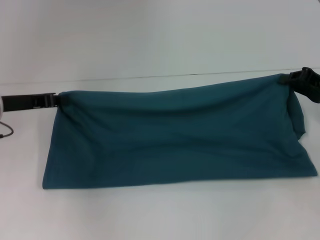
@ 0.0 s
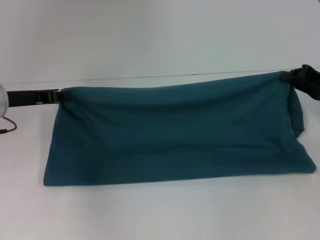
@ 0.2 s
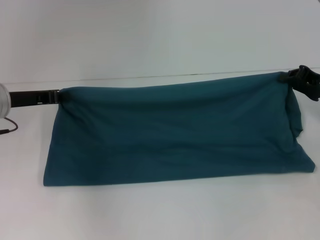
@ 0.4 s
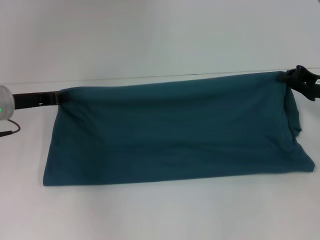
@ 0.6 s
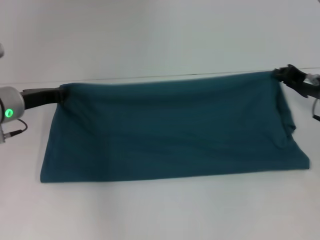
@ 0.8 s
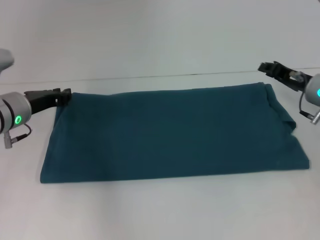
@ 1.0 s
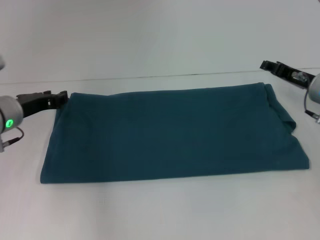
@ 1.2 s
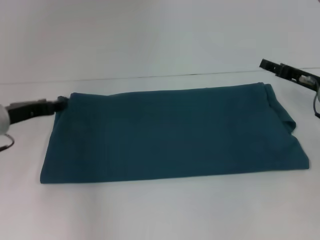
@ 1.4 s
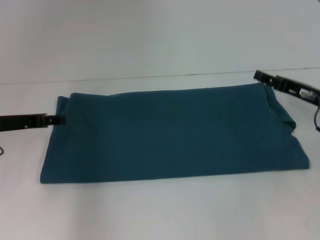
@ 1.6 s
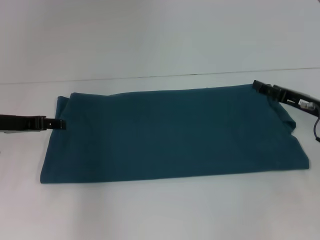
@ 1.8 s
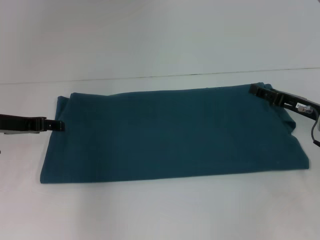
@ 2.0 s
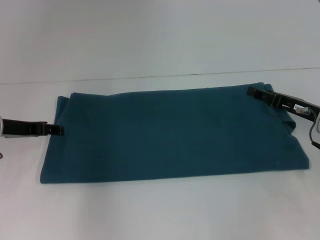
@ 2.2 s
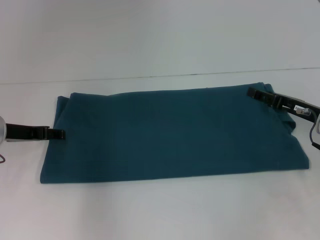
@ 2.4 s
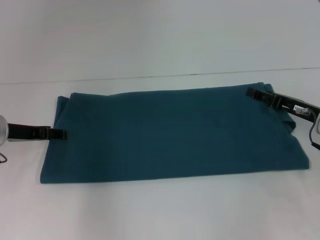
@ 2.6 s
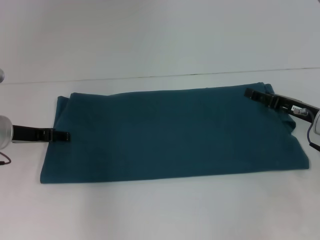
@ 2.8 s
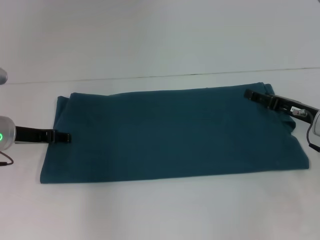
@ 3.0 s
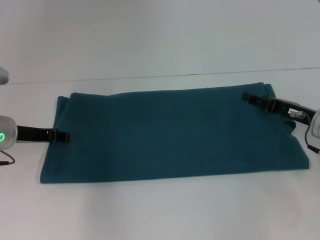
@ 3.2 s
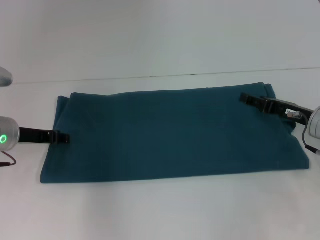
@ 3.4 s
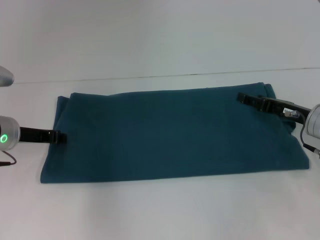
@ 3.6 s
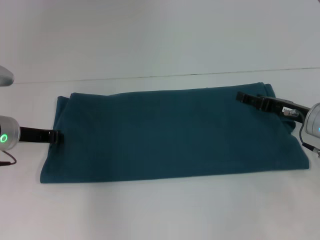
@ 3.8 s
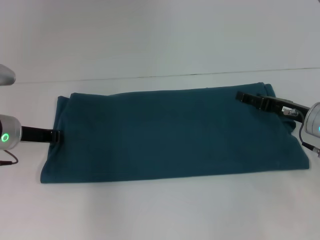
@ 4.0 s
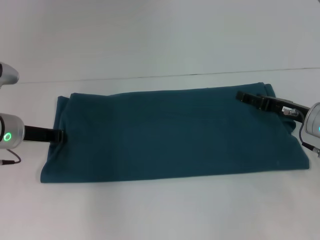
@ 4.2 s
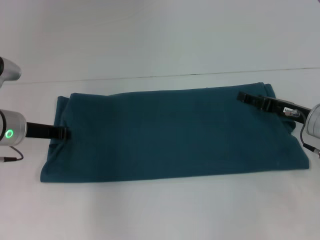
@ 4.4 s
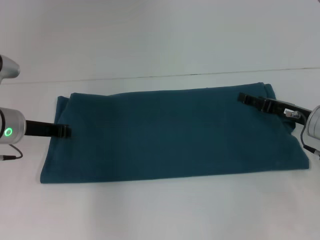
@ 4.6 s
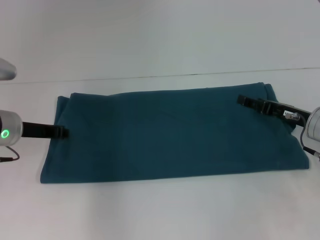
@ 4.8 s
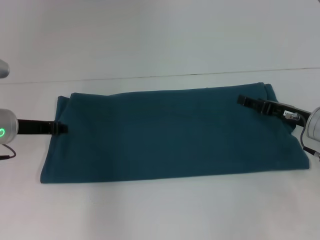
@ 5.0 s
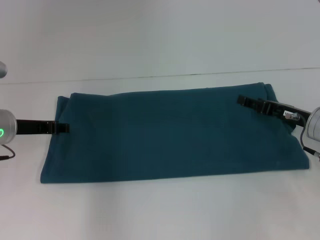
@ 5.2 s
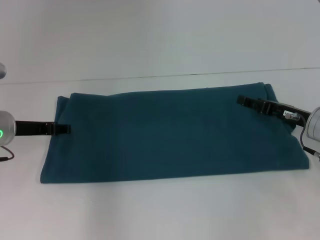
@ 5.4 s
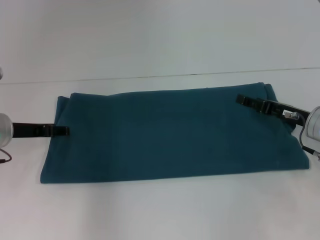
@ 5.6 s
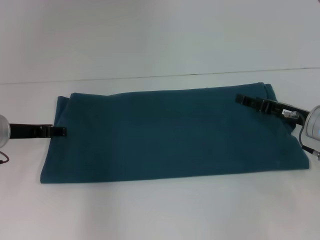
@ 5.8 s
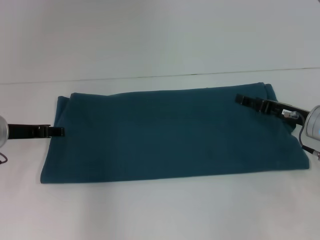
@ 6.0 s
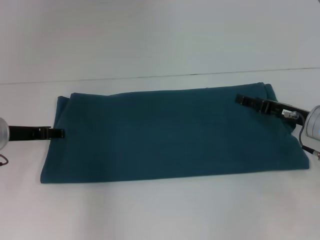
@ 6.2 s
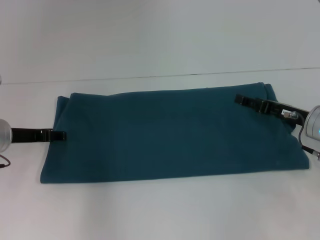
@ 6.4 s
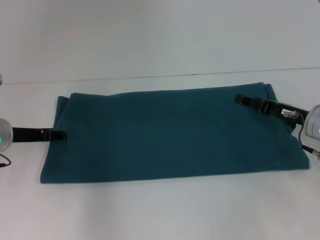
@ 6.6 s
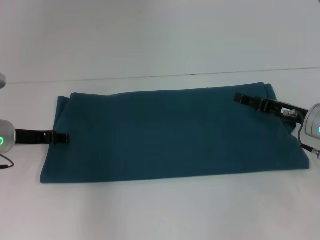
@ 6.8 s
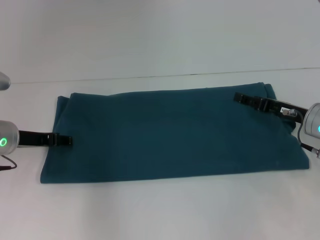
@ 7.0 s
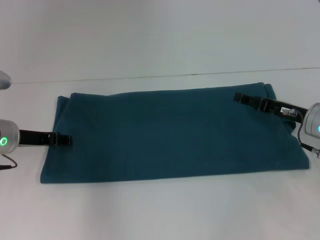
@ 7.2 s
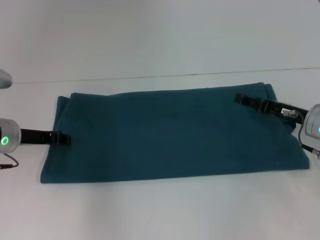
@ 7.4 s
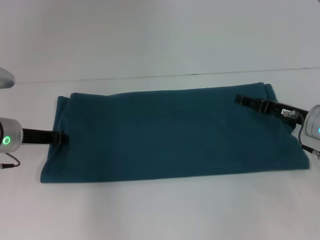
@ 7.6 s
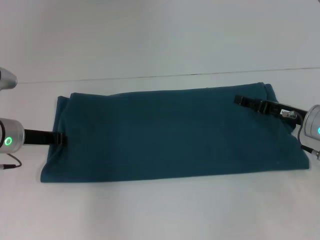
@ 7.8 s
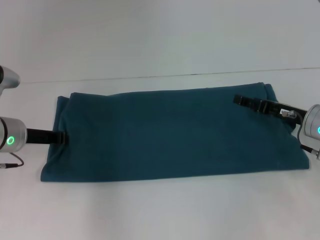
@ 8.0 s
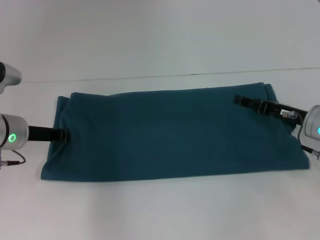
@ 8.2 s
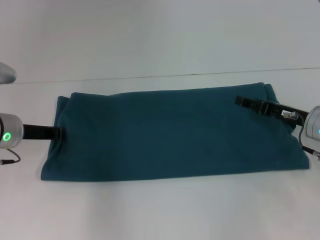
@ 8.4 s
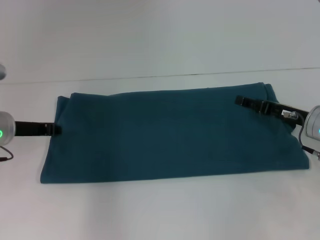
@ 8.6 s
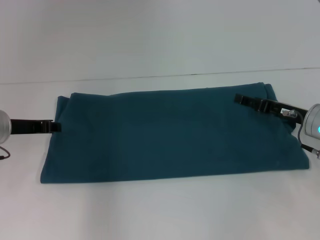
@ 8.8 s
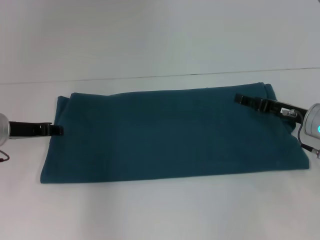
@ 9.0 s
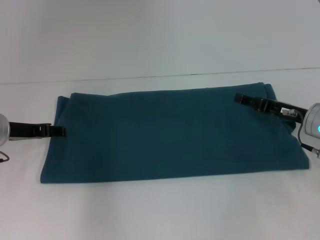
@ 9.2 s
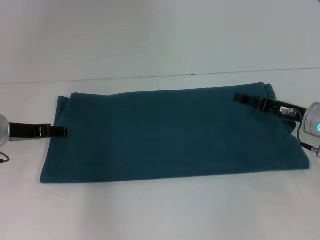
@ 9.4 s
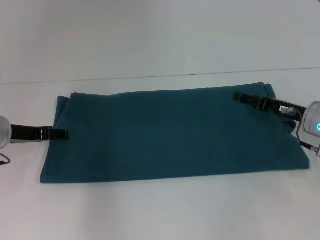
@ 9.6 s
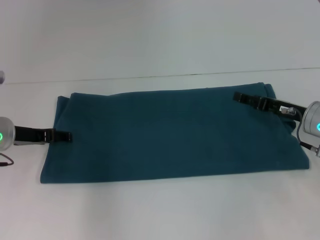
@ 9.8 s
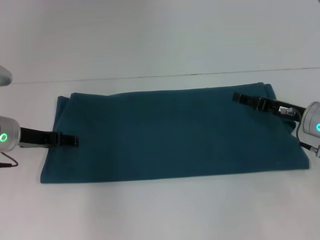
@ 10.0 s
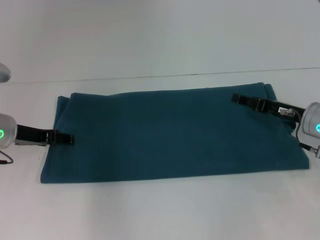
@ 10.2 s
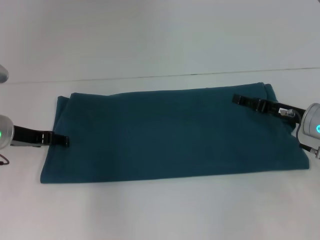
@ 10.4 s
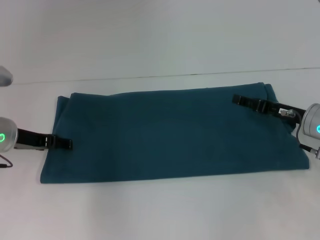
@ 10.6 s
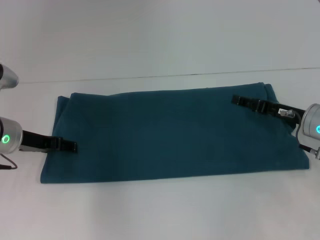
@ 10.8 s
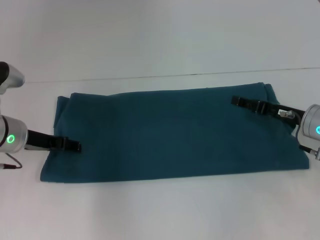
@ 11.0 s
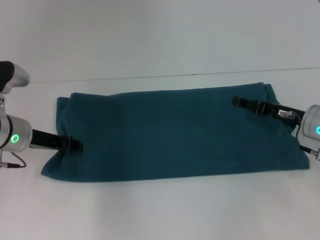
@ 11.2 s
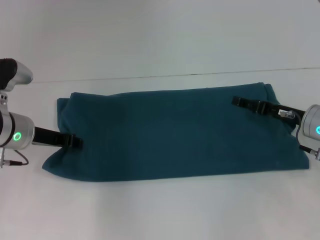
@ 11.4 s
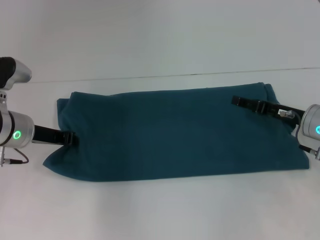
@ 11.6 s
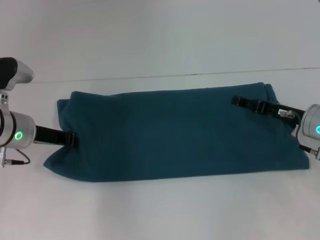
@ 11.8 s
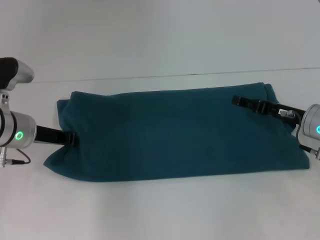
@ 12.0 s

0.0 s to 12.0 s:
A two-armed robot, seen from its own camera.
0.0 to 1.6 s: The left gripper opens its fingers. Meanwhile the right gripper opens its fingers.
1.6 to 3.0 s: The grippers make only small movements.
3.0 to 4.4 s: The left gripper closes.
4.4 to 6.0 s: The left gripper opens its fingers.
6.0 to 9.0 s: There are only small adjustments of the grippers.
9.0 to 10.4 s: The left gripper opens.
10.4 to 12.0 s: The left gripper closes its fingers.

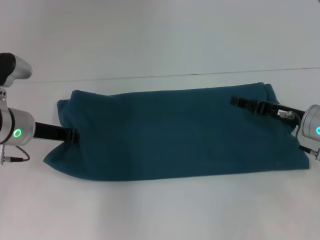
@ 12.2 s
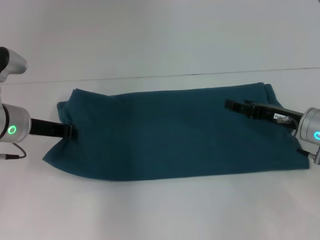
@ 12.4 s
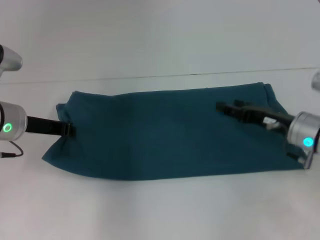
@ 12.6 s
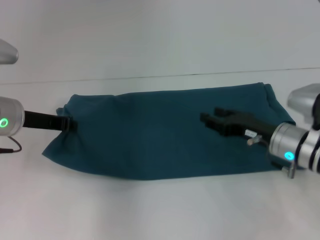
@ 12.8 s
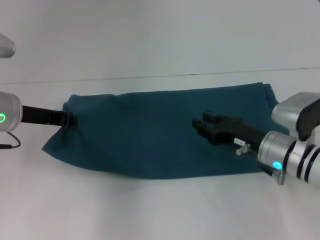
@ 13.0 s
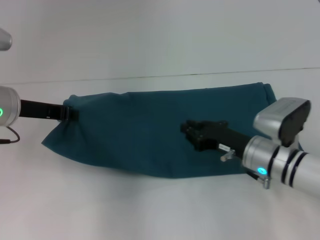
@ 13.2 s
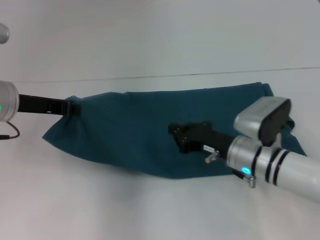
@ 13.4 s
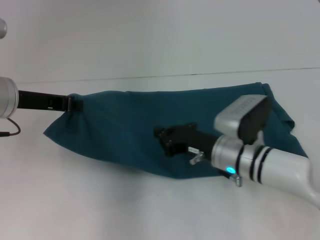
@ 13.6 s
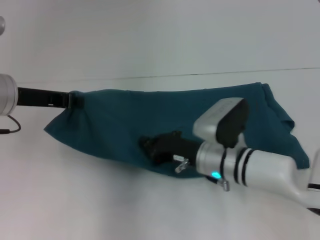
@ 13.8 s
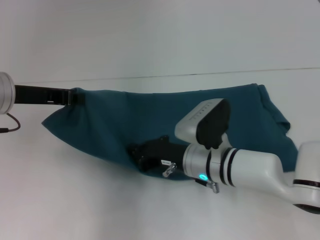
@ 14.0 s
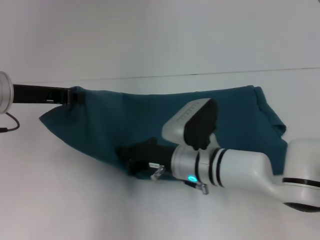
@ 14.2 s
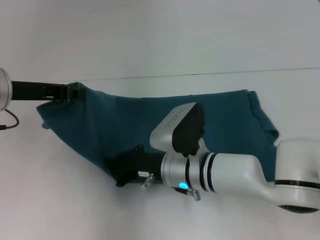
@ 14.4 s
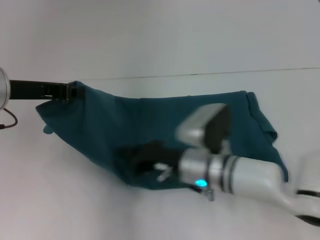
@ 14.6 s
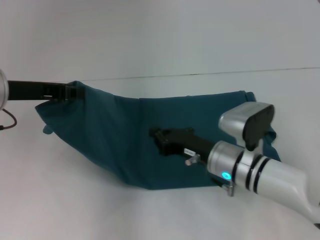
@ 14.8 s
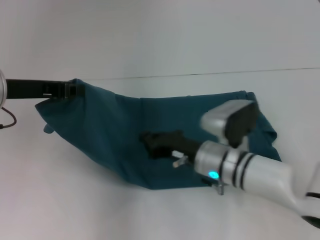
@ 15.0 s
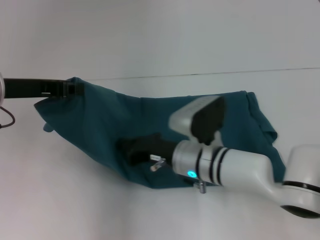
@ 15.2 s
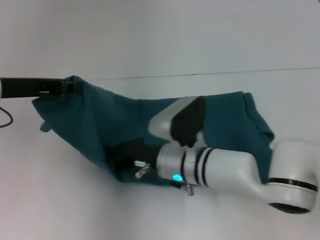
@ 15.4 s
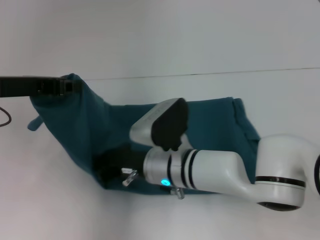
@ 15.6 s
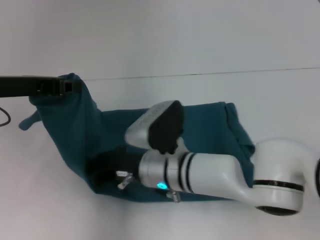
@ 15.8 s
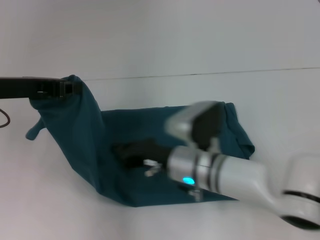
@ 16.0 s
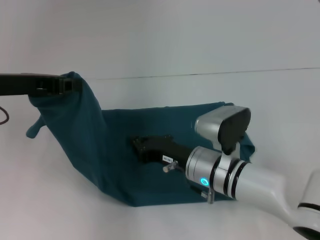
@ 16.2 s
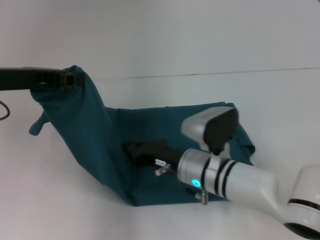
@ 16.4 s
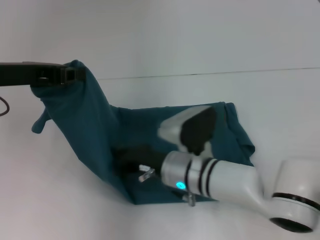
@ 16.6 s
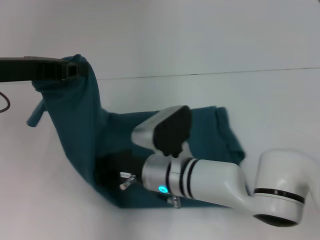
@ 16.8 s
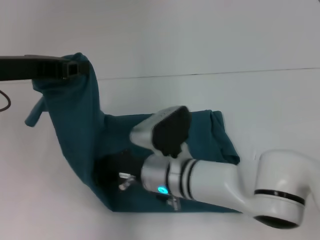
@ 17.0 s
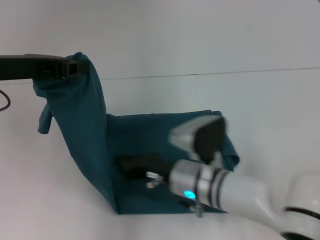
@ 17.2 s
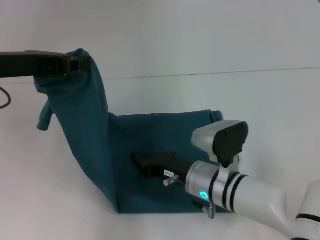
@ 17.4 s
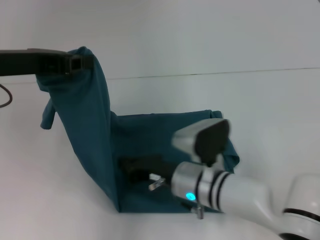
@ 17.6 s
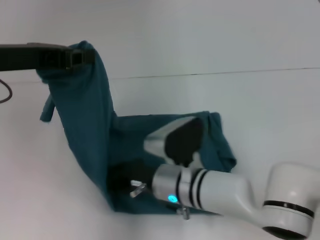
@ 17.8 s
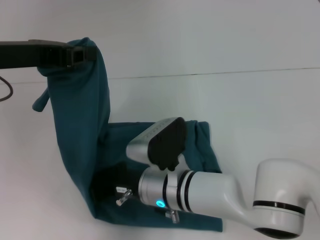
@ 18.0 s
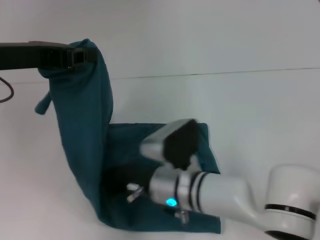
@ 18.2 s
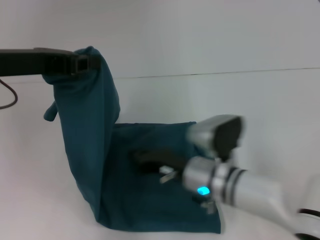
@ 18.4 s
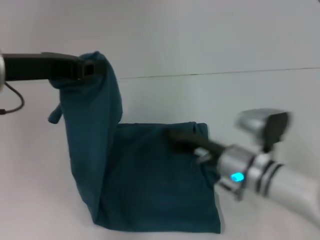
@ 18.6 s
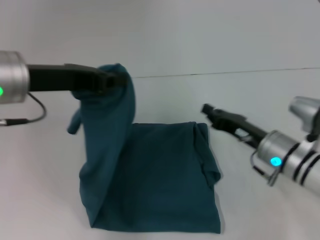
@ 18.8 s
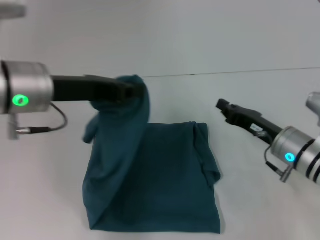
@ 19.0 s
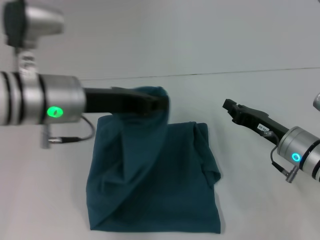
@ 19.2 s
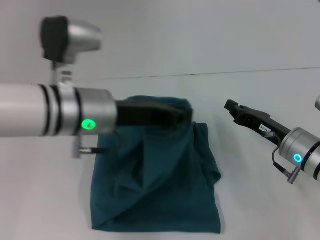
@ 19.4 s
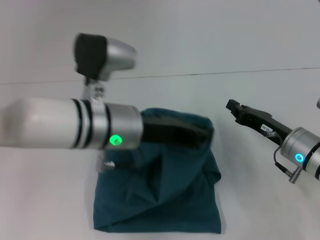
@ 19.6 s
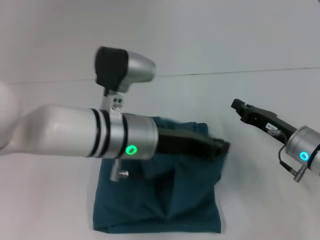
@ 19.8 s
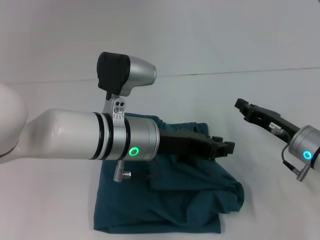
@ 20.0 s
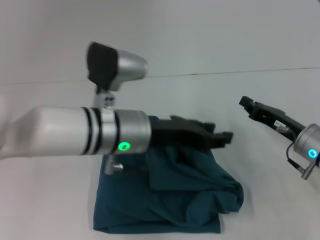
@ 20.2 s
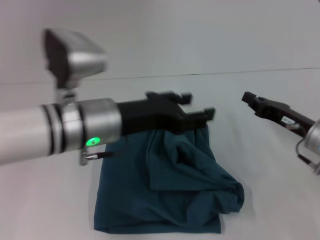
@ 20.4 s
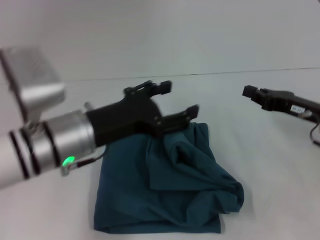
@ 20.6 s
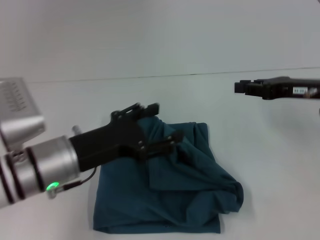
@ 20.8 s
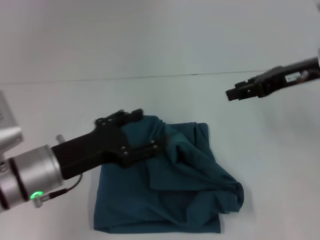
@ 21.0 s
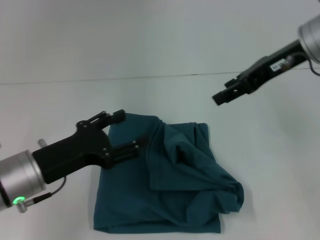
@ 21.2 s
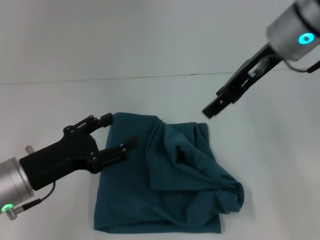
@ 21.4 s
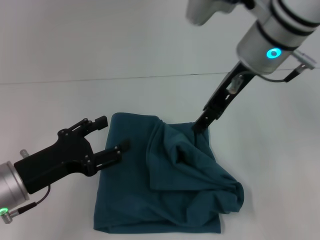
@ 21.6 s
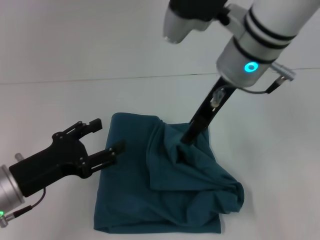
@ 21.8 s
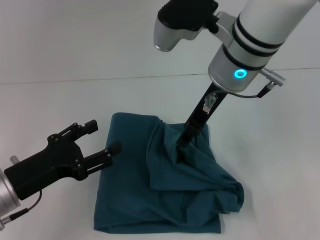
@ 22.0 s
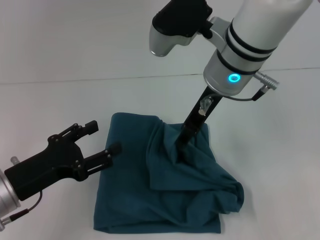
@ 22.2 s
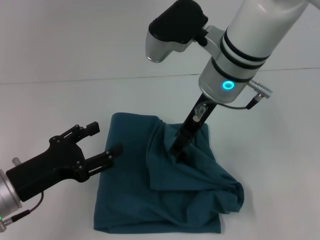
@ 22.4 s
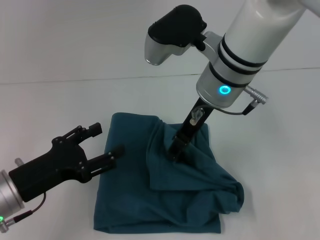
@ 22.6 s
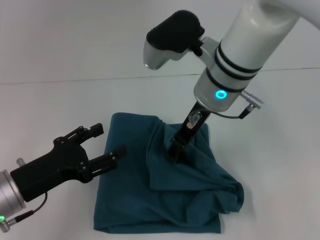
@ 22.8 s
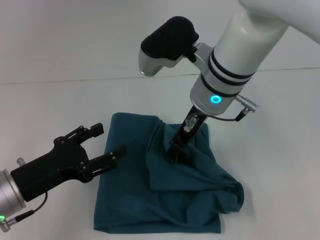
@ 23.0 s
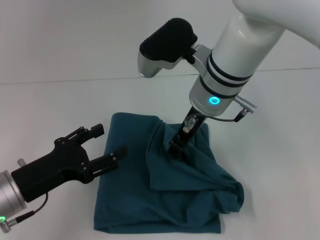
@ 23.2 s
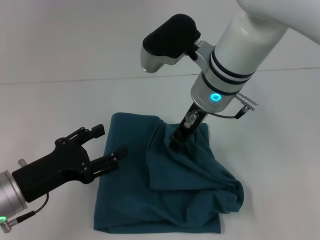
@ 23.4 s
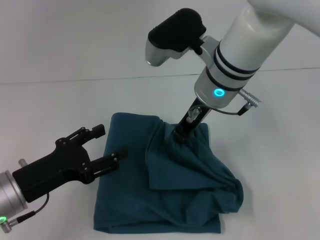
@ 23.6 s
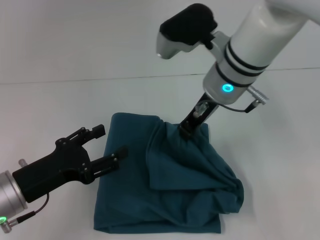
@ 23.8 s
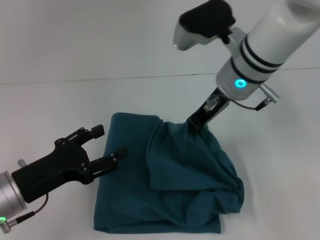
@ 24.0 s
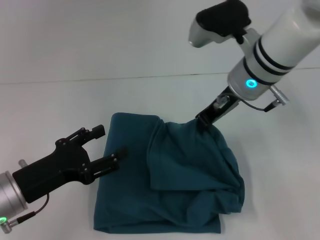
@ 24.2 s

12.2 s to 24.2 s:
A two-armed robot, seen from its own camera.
Step, 12.2 to 18.2 s: Press the middle of the clothes with your right hand.
Step, 18.4 to 20.6 s: Fold the clothes to the left.
12.2 to 13.8 s: The right gripper moves to the left, approximately 15 cm, and closes up. Meanwhile the left gripper heads upward, covering roughly 10 cm.
13.8 to 15.2 s: The right gripper moves left and right over approximately 5 cm, changing direction 2 times.
18.2 to 19.8 s: The left gripper is displaced to the right and downward by approximately 20 cm; the right gripper heads to the right, covering approximately 20 cm.
19.8 to 21.2 s: The right gripper is displaced upward by roughly 20 cm, and opens its fingers. The left gripper travels to the left by approximately 15 cm, and opens its fingers.
21.2 to 22.6 s: The right gripper goes approximately 15 cm to the left.
22.6 to 24.2 s: The right gripper is displaced to the right by about 5 cm, and closes up.
